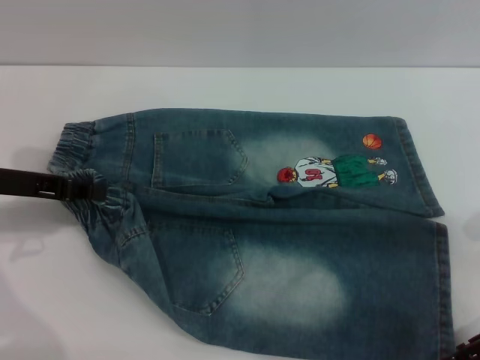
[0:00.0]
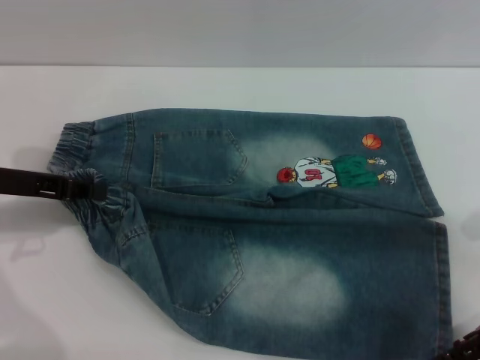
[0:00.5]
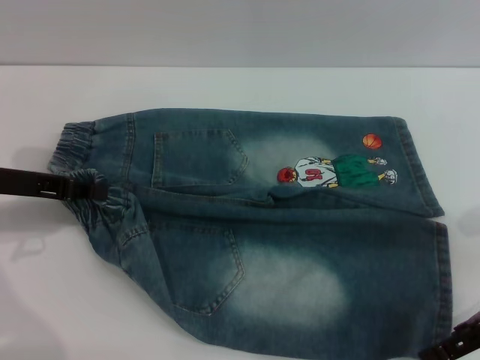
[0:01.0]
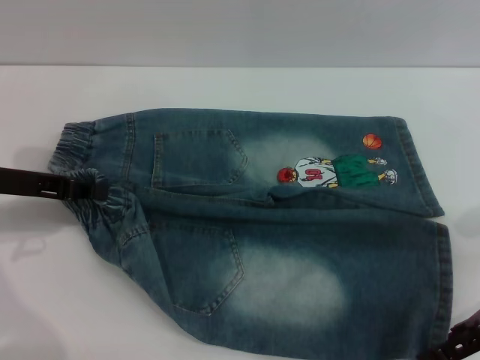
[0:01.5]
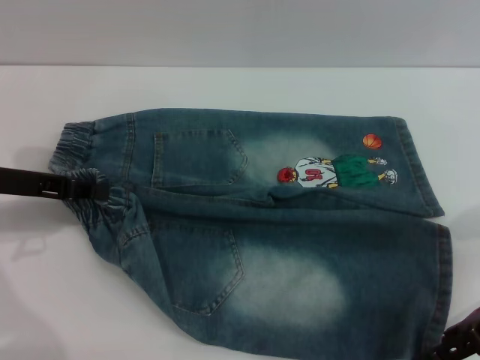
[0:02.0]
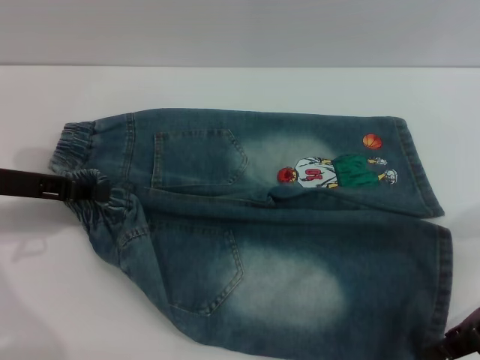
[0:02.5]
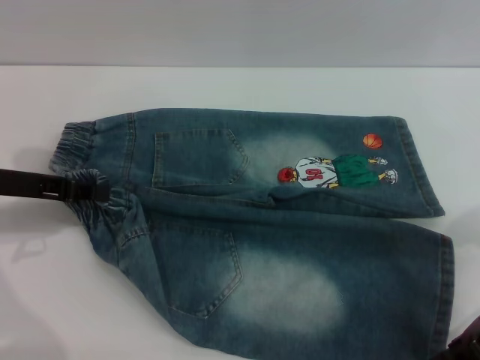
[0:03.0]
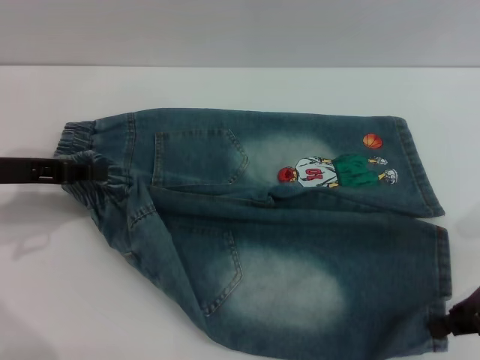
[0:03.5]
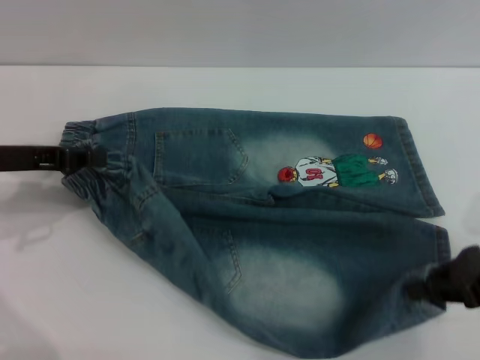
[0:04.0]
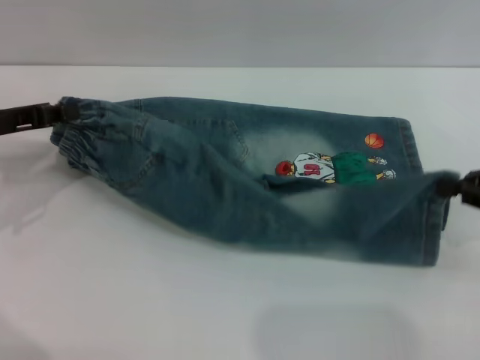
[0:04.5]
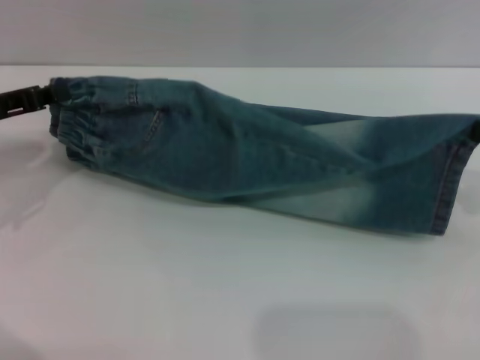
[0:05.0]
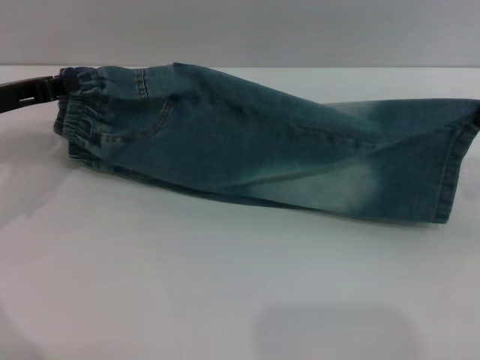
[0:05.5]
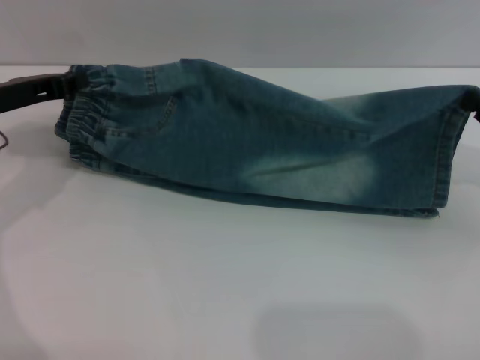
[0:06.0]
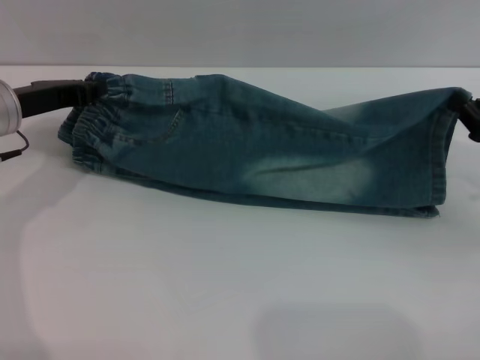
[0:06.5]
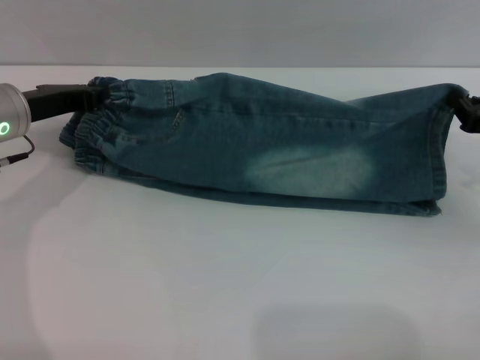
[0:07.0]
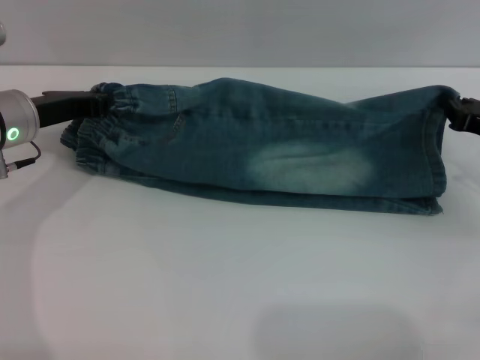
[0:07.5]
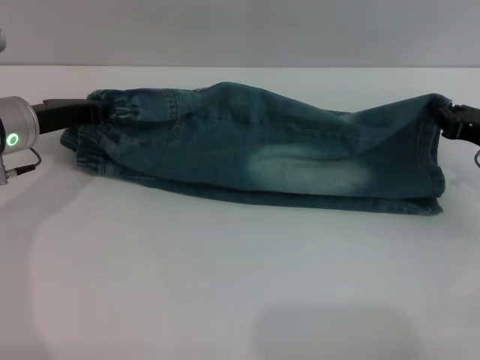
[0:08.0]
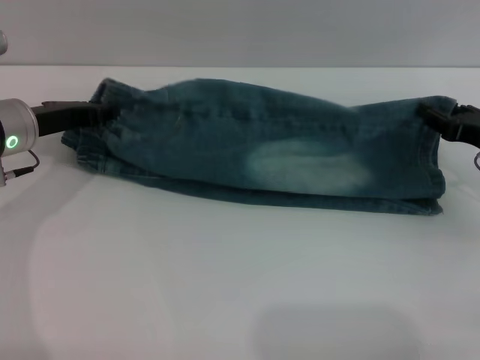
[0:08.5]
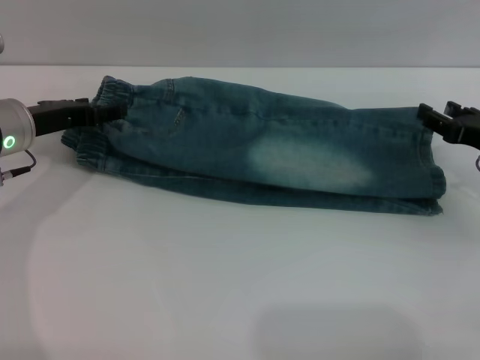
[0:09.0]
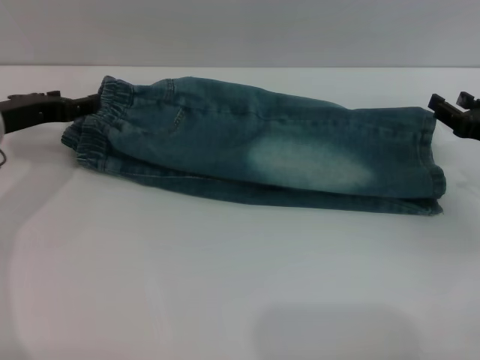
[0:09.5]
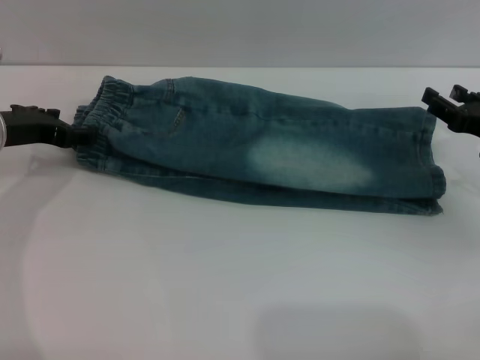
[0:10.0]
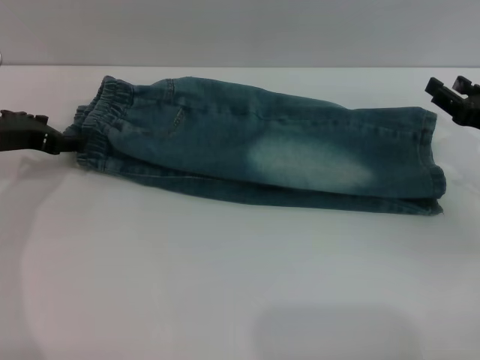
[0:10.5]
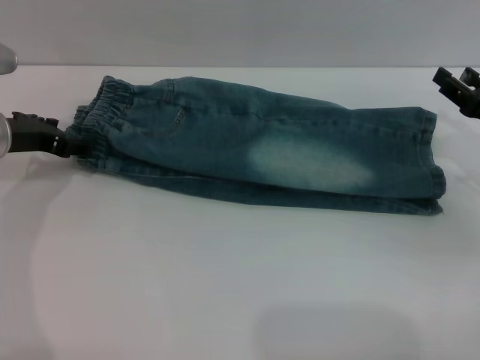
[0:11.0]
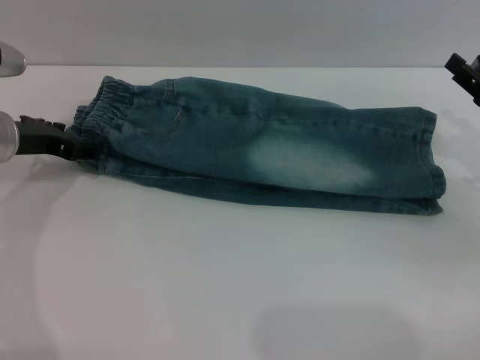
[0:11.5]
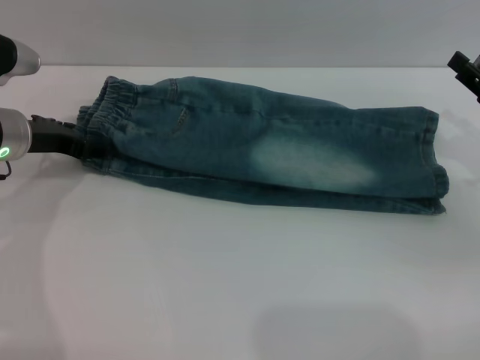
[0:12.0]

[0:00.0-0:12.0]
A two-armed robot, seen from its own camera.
Step, 0:00.0 to 0:10.0: Fold the bottom of the pants upward with both grippers.
0:00.0 to 0:02.0: The grippers stay close to where they were, moving slightly.
0:02.0 to 0:04.0: The right gripper closes.
0:04.0 to 0:06.0: The right gripper shifts by about 5 cm.
0:06.0 to 0:08.0: The right gripper shifts by approximately 5 cm. The left gripper changes place by some 5 cm.
0:08.0 to 0:10.0: The right gripper opens up; the left gripper opens its fingers.
0:10.0 to 0:12.0: The grippers move only a little.

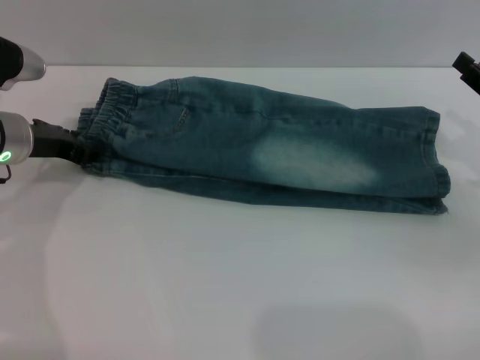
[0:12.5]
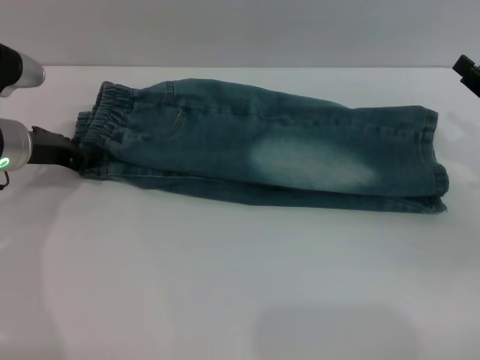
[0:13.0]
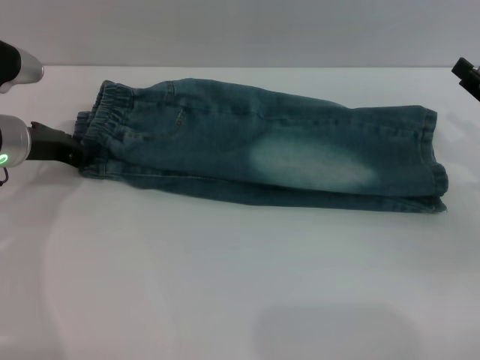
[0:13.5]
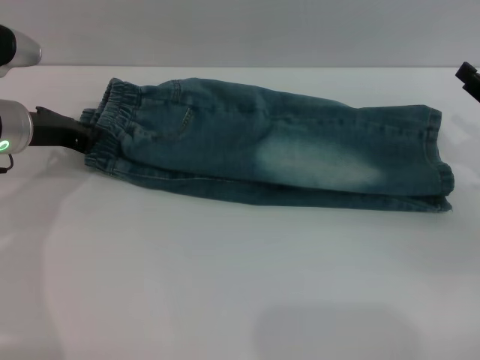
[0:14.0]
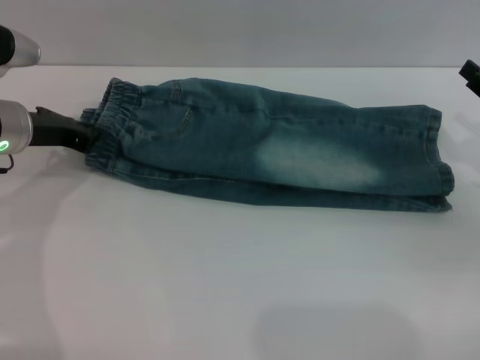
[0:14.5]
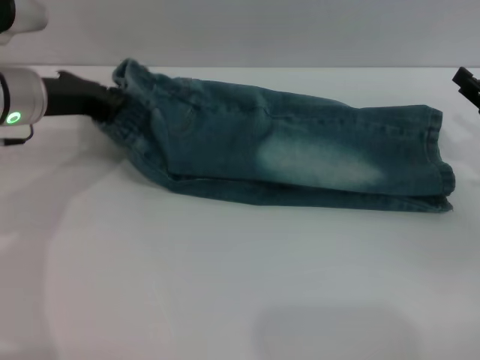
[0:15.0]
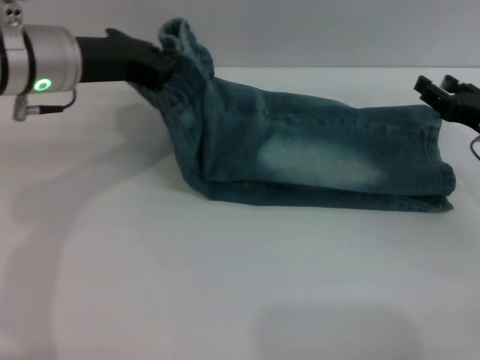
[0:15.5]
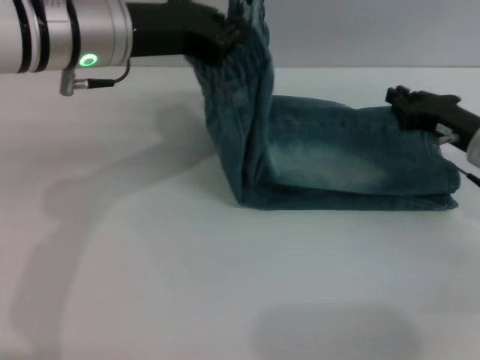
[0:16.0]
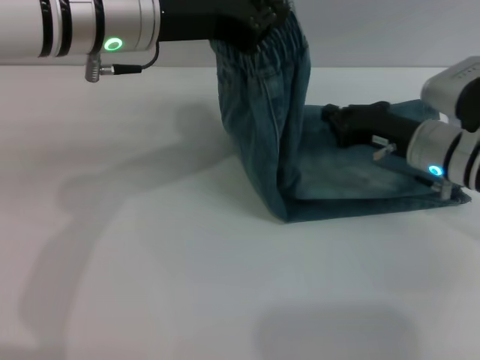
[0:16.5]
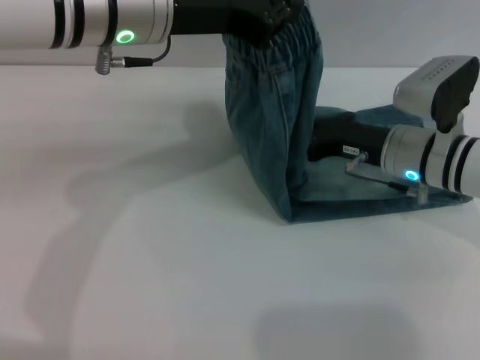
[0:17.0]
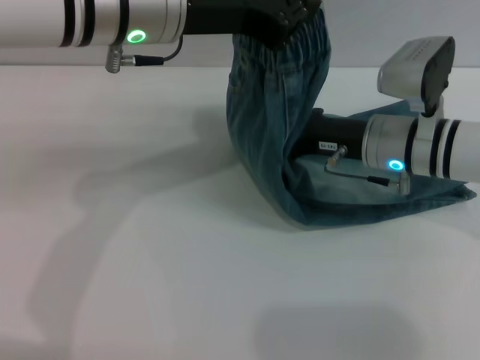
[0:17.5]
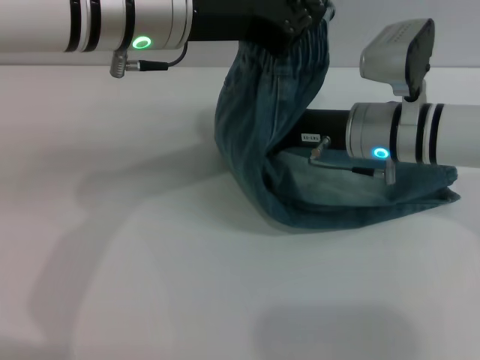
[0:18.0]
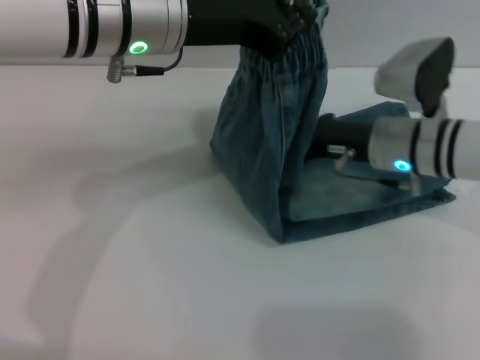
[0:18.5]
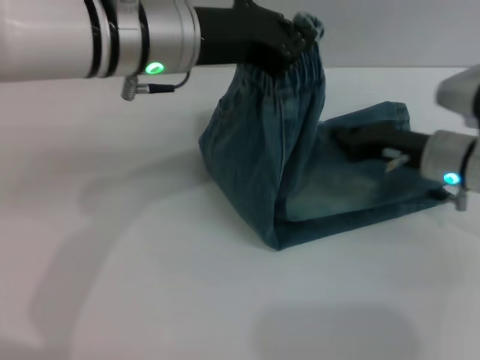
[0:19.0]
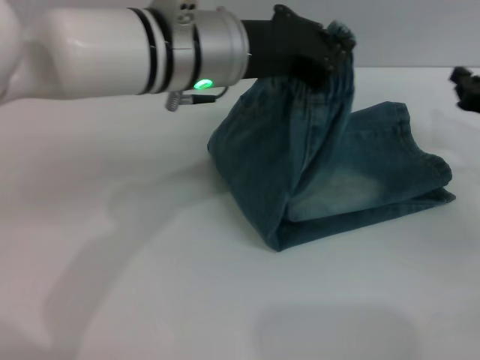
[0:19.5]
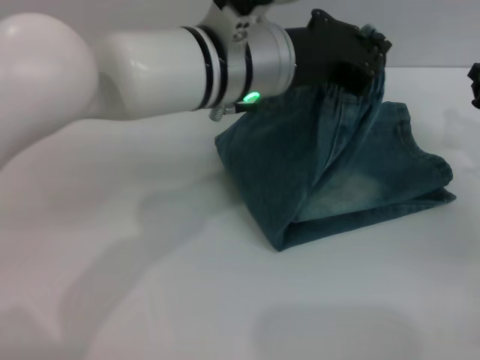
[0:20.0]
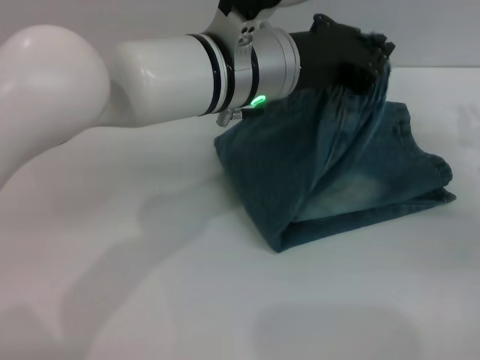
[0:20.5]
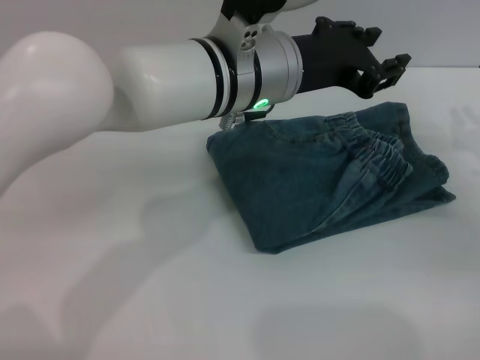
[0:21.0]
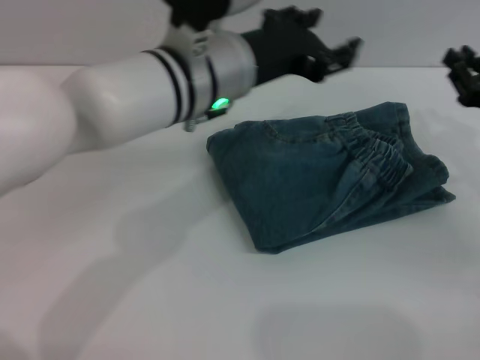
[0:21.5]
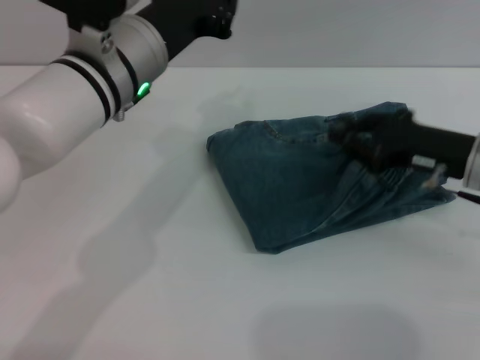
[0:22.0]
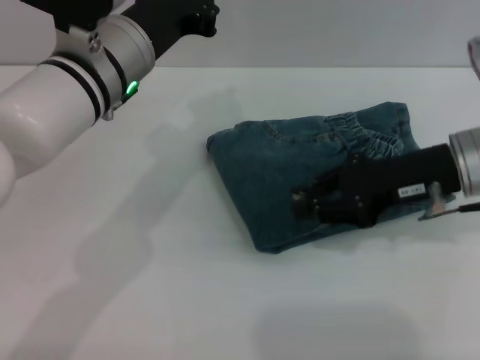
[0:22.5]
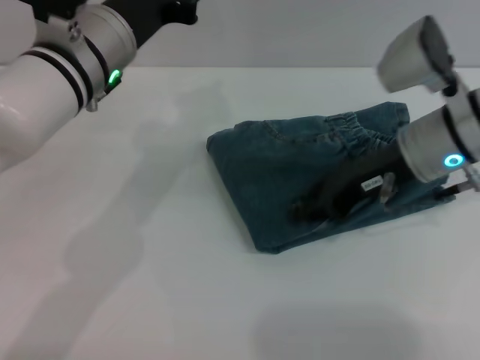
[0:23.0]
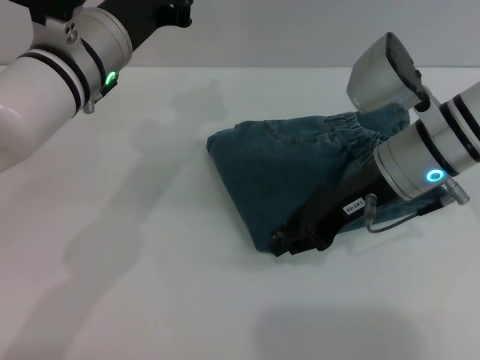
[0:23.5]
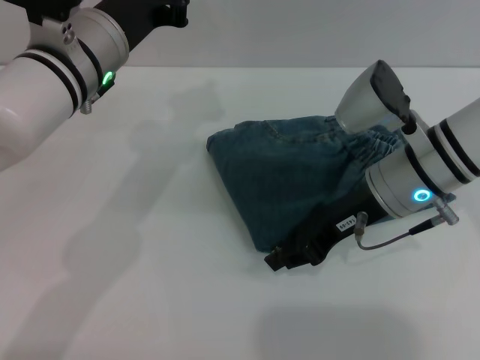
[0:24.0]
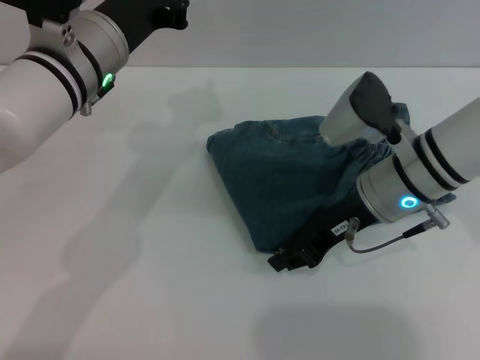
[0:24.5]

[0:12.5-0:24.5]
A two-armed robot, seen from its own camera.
Step, 0:12.5 to 0:20.5: Fold the pants from left to right with the left gripper.
0:12.5 to 0:14.5: The left gripper closes.
0:14.5 to 0:16.5: The right gripper travels to the left and forward by about 15 cm, and closes. The left gripper moves to the right and upward, some 20 cm.
0:18.5 to 0:20.5: The right gripper moves to the right, roughly 15 cm, while the left gripper is displaced to the right by some 10 cm.
0:20.5 to 0:22.5: The left gripper is displaced to the left by approximately 10 cm, and opens and closes again; the right gripper moves to the left and upward, some 15 cm.
0:22.5 to 0:24.5: The right gripper heads to the left, covering roughly 5 cm.

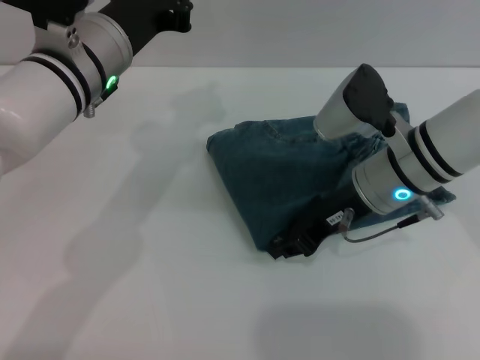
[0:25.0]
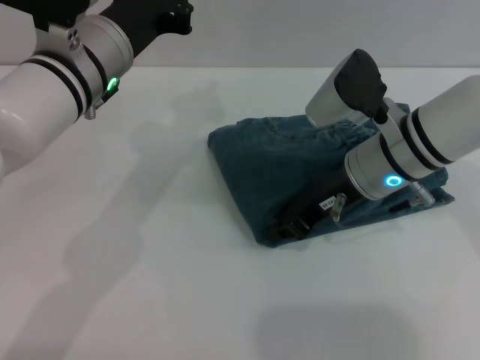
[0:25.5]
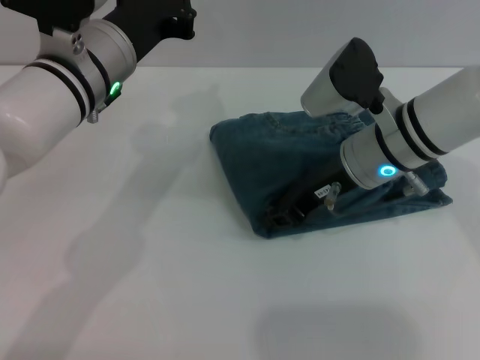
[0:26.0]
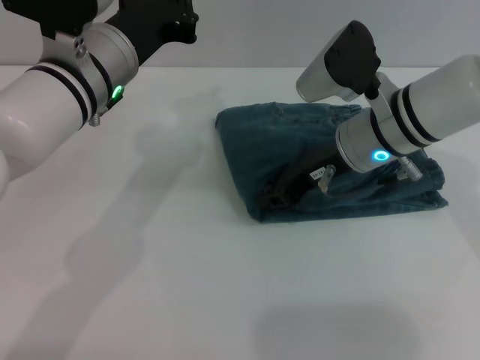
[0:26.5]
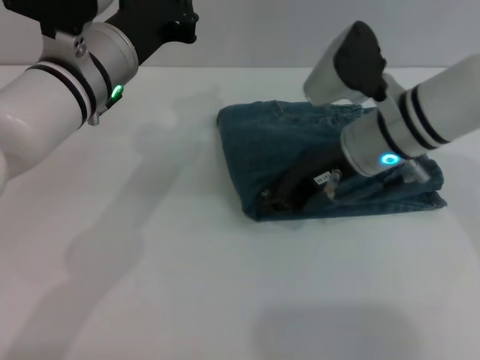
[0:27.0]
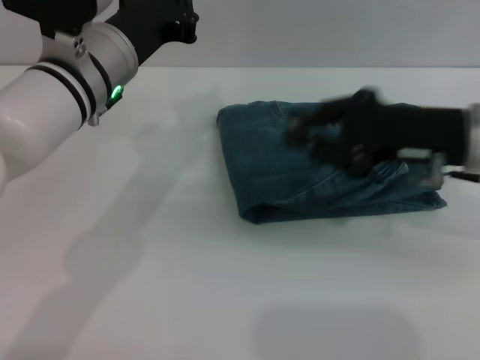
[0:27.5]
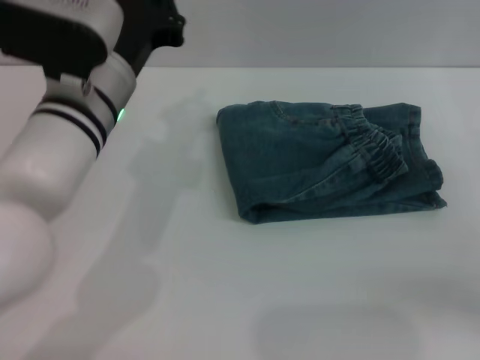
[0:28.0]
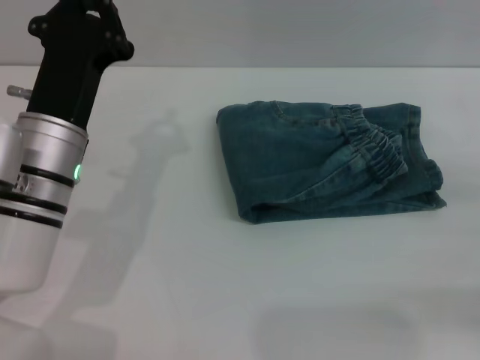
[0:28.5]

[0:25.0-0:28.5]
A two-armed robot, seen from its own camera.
Step, 0:25.0 to 0:27.0: Place the folded trousers onto the center area with the right grippers.
0:25.0 to 0:27.0: The grippers move only a little.
0:27.0 to 0:28.5: The right gripper is displaced to the right and backward by about 30 cm, while the left gripper moves backward and downward, roughly 10 cm.
